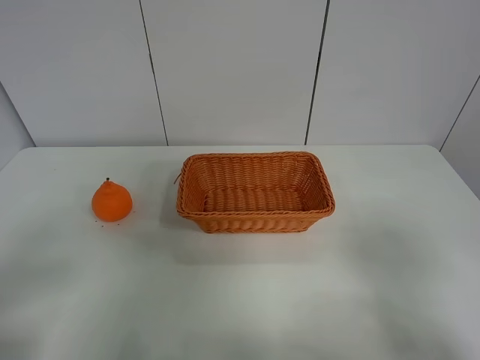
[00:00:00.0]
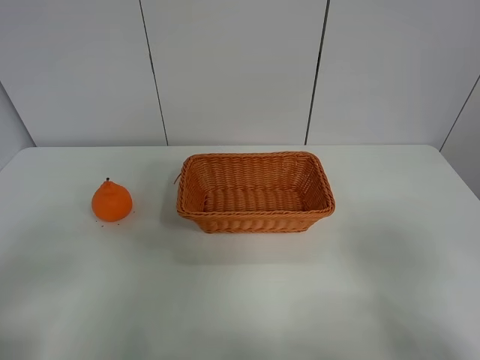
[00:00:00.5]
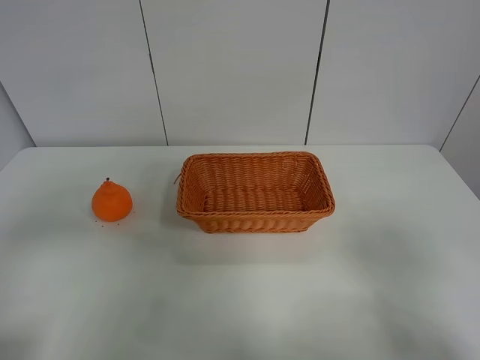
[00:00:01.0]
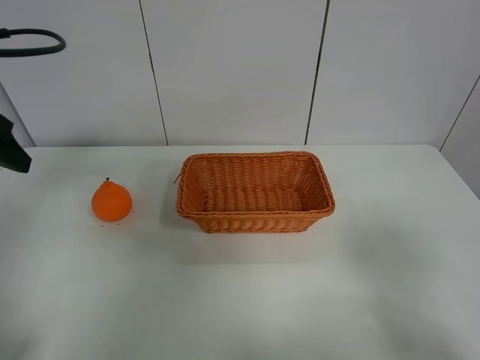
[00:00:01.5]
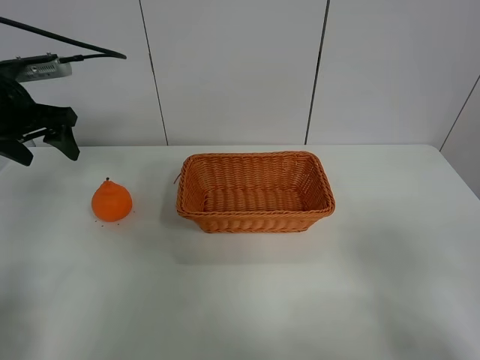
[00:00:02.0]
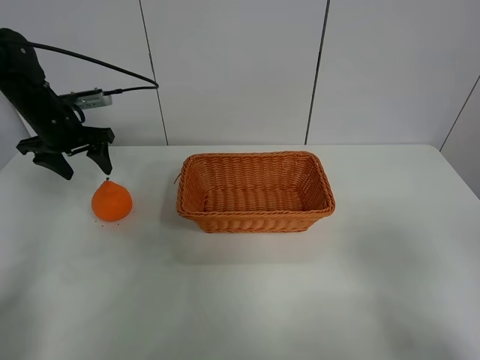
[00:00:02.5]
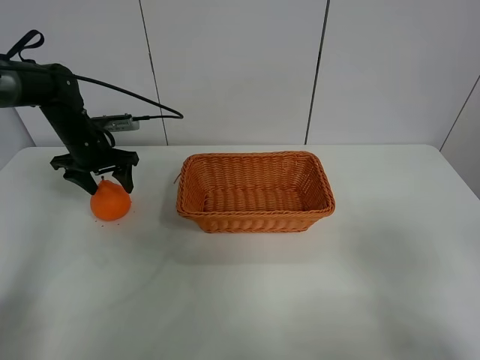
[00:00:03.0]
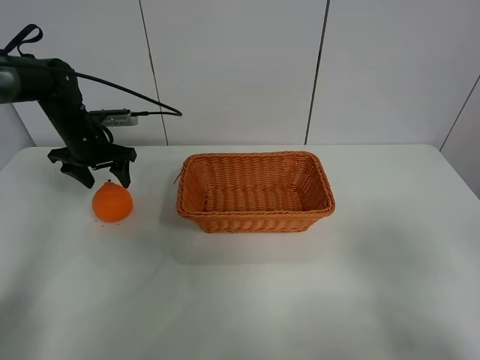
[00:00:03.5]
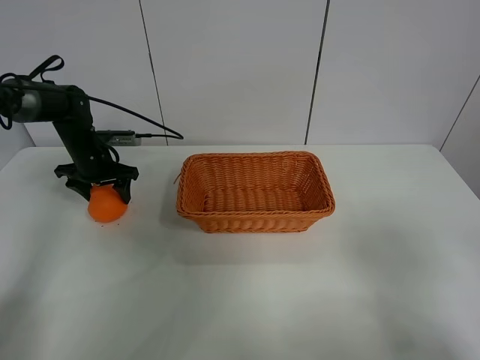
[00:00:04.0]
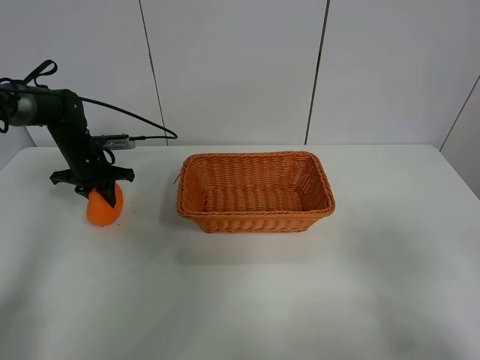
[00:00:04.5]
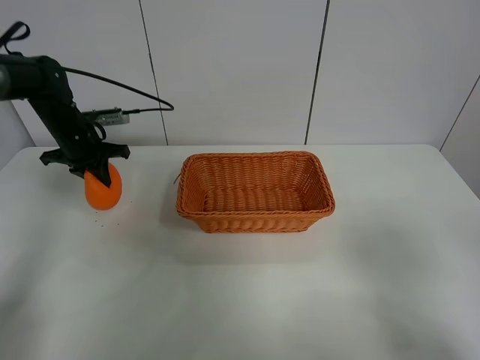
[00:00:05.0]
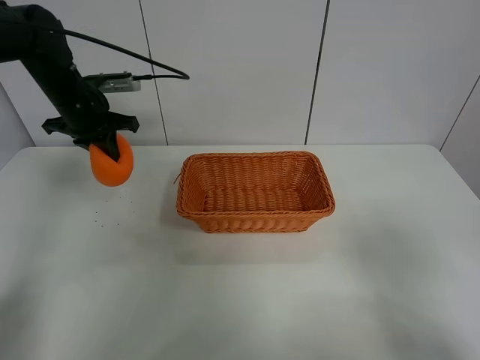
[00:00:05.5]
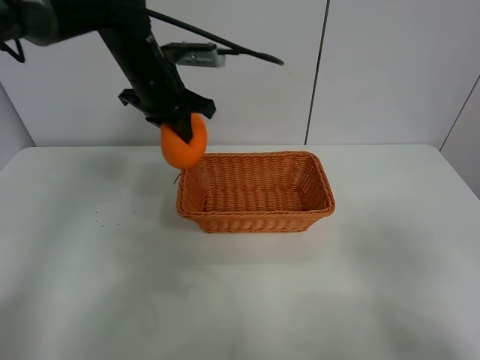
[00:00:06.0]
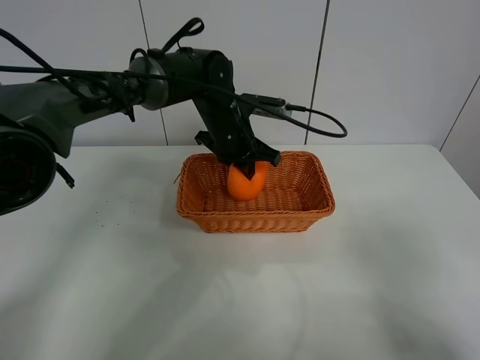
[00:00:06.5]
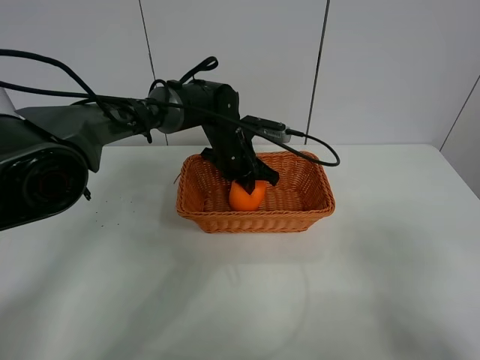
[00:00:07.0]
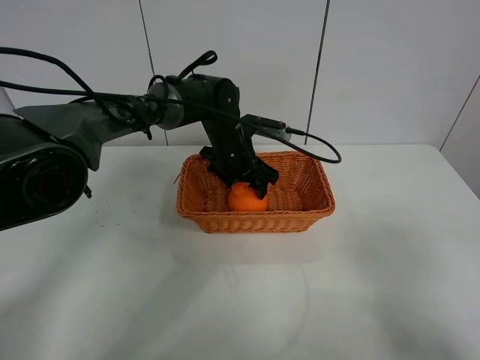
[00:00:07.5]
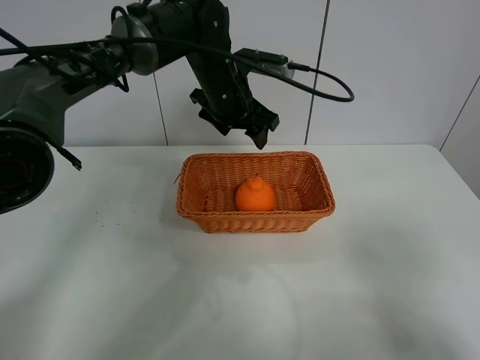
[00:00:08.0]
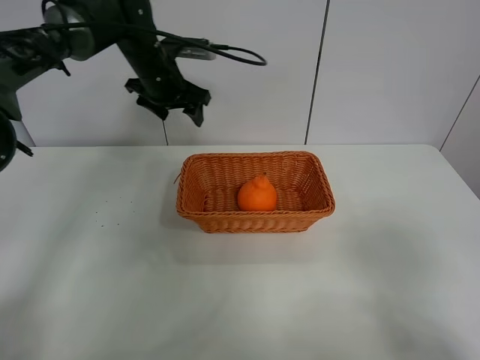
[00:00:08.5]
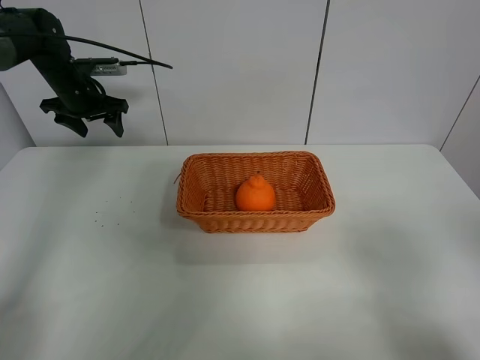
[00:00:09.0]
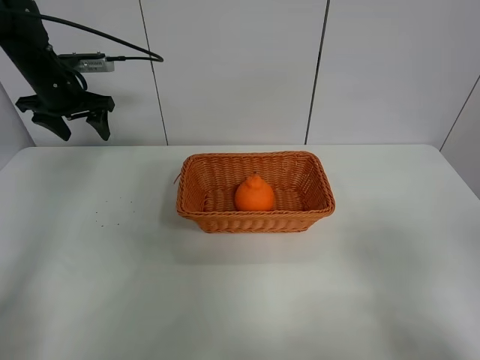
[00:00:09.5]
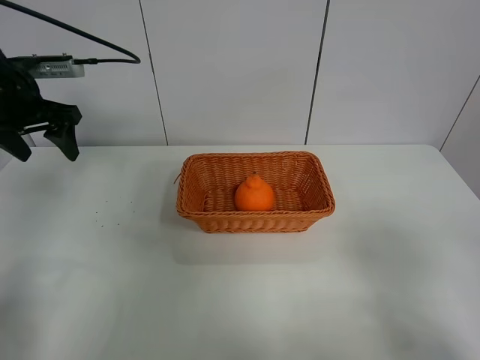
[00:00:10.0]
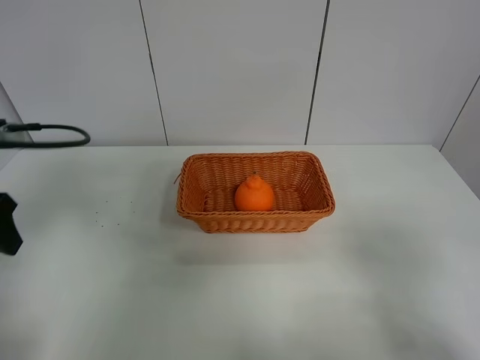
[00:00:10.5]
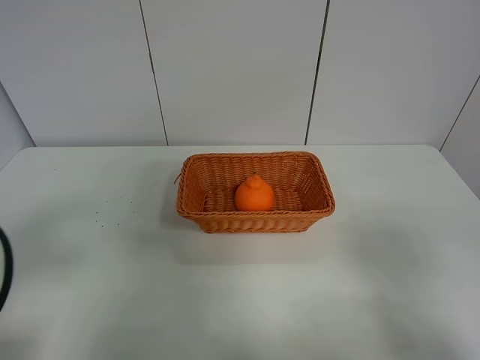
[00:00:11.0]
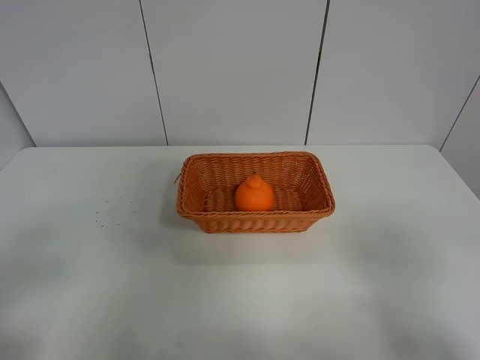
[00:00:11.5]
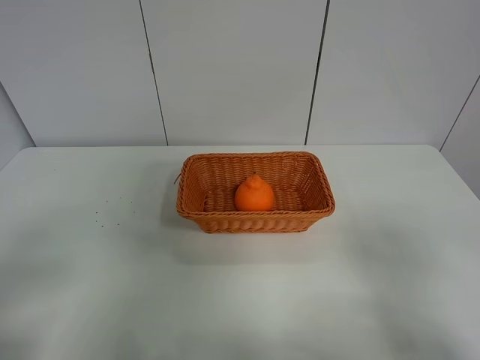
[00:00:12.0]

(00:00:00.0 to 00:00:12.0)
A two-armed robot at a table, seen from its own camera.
Task of the whole recording: left gripper grabs oranges and puts them in the basket.
Step, 00:00:00.0 - 00:00:04.5: Grasp the orange with left gripper.
Step, 00:00:05.0 - 00:00:08.5: Place the orange in the basket with left gripper.
00:00:00.0 - 00:00:02.0: The left gripper is displaced forward by about 35 cm.
00:00:02.0 - 00:00:04.0: The left gripper heads downward and forward, covering roughly 20 cm.
00:00:04.0 - 00:00:06.0: The left gripper is displaced to the right and upward by some 25 cm, and closes up.
00:00:06.0 - 00:00:08.0: The left gripper is displaced to the right by approximately 10 cm, moves about 15 cm downward and comes back, and opens up.
00:00:08.0 - 00:00:10.0: The left gripper moves to the left, roughly 30 cm.
00:00:10.0 - 00:00:12.0: The left gripper heads backward, covering some 35 cm.
